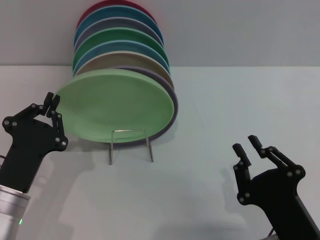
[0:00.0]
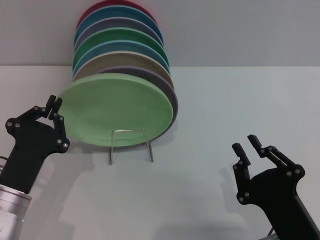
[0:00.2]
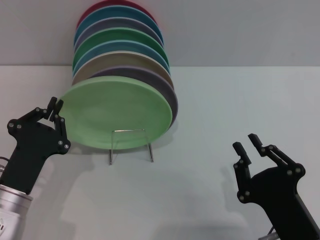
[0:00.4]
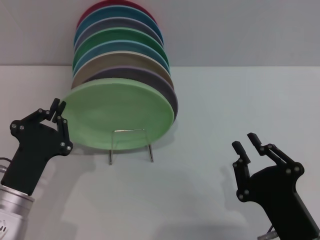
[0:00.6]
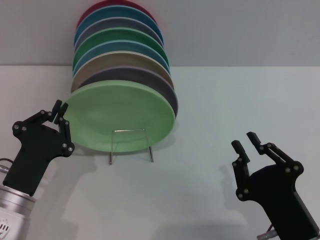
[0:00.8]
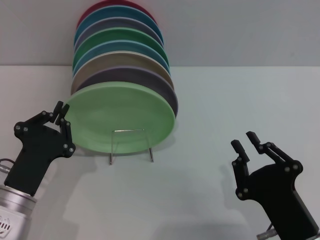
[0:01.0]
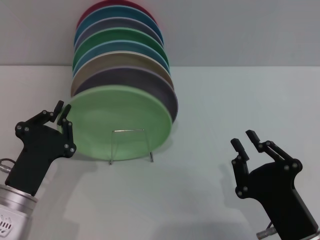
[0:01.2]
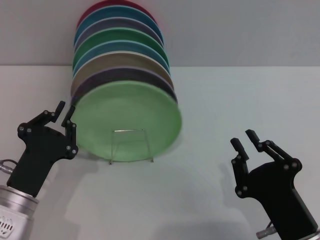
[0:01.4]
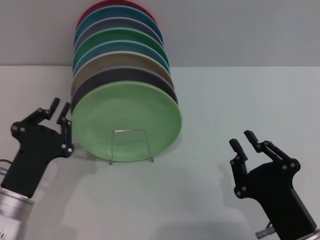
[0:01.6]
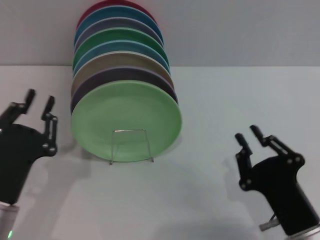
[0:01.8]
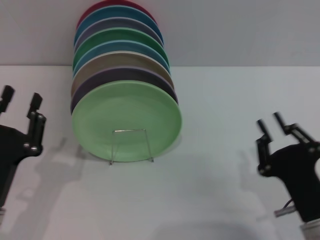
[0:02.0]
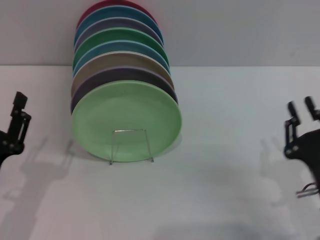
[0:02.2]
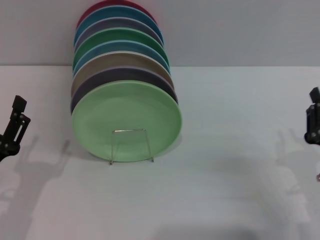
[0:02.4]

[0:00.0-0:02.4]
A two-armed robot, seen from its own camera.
Task of the whole recording: Grip the plate with one hand, pass it to the other, then set it on the shelf.
0:00.0 to 0:01.2: The grippers make only small movements.
0:01.2 to 0:02.4: The right gripper goes approximately 10 cm to the right and forward. The left gripper shifts by approximately 5 cm, and opens.
